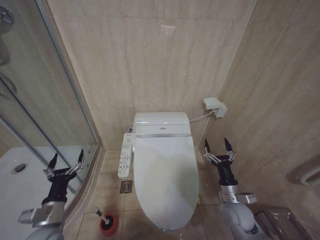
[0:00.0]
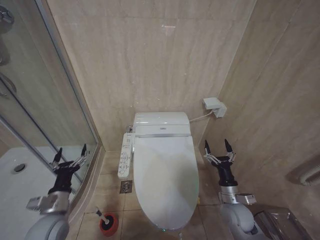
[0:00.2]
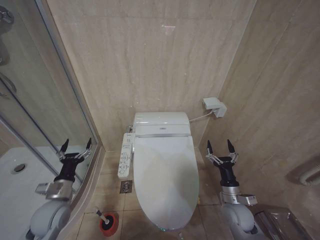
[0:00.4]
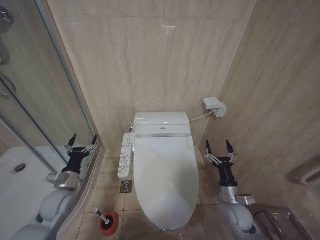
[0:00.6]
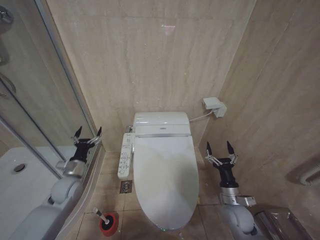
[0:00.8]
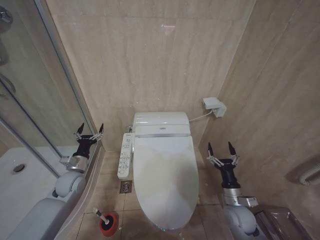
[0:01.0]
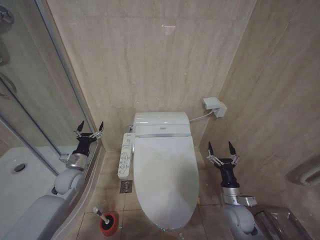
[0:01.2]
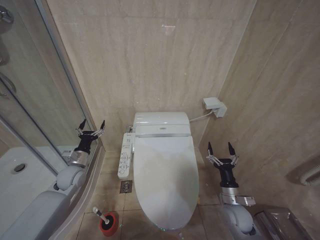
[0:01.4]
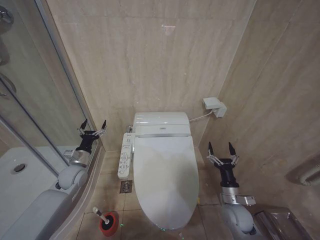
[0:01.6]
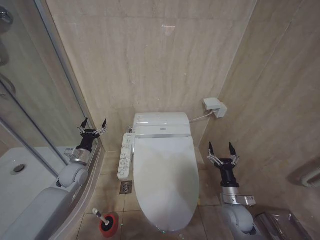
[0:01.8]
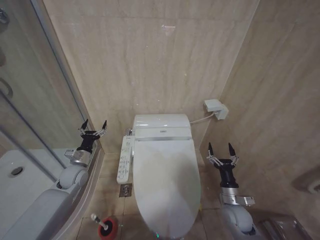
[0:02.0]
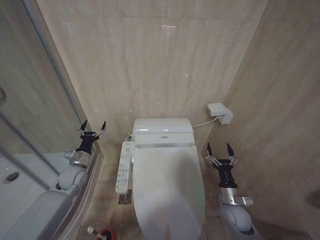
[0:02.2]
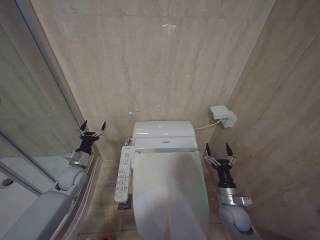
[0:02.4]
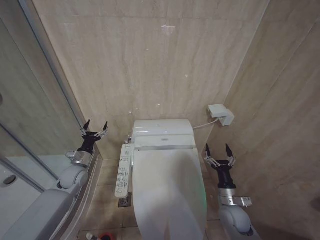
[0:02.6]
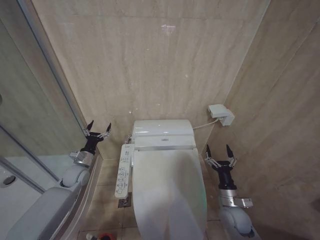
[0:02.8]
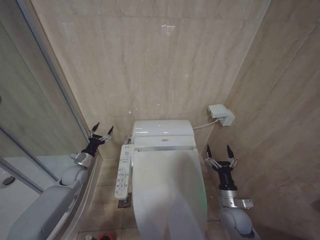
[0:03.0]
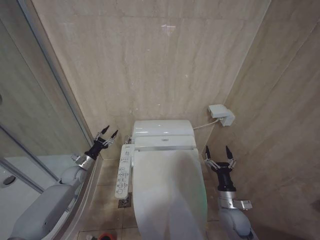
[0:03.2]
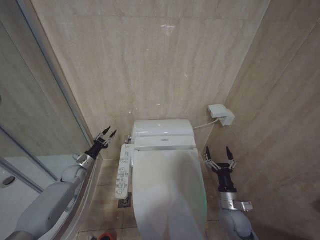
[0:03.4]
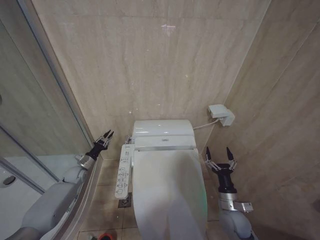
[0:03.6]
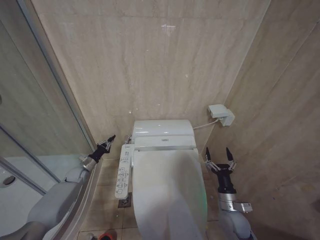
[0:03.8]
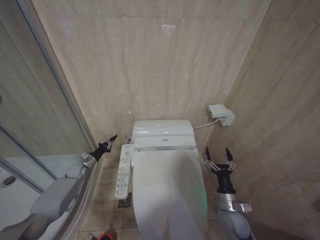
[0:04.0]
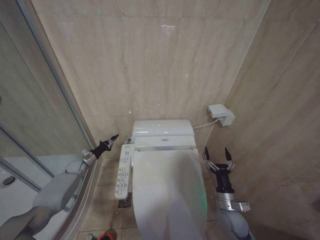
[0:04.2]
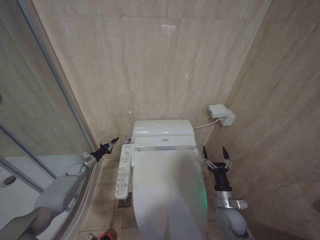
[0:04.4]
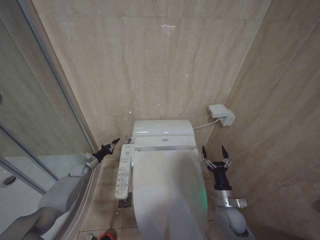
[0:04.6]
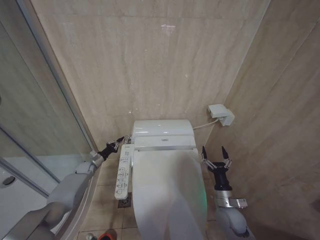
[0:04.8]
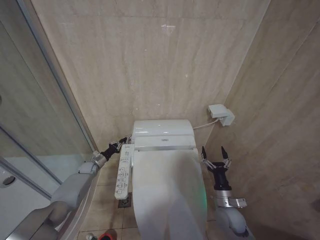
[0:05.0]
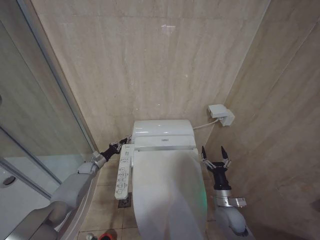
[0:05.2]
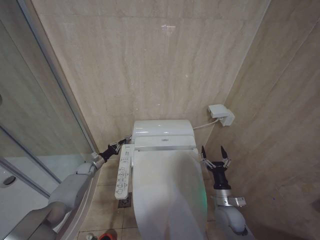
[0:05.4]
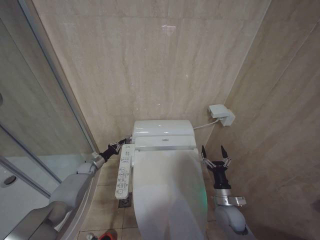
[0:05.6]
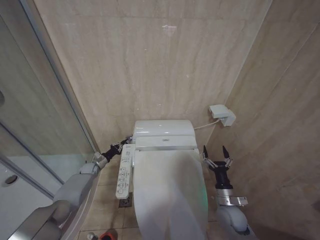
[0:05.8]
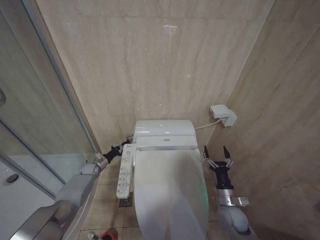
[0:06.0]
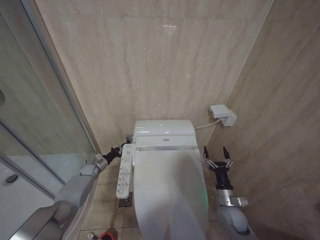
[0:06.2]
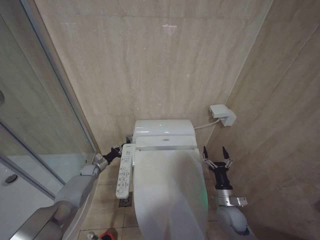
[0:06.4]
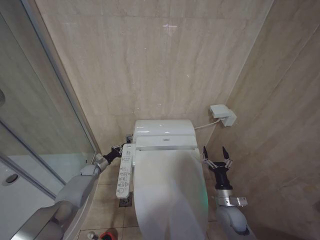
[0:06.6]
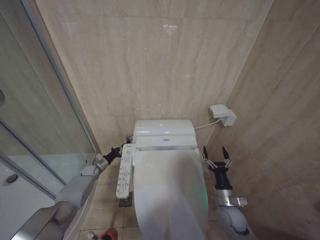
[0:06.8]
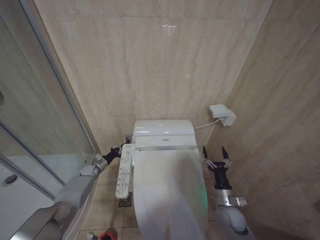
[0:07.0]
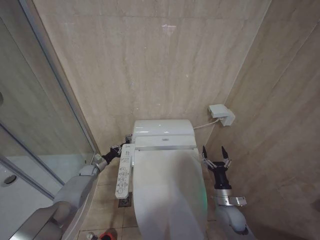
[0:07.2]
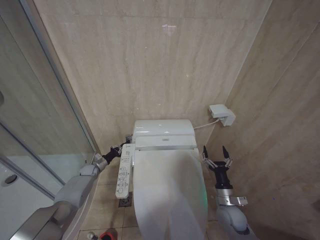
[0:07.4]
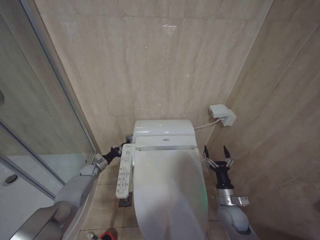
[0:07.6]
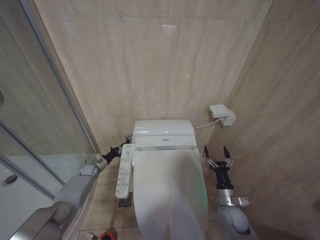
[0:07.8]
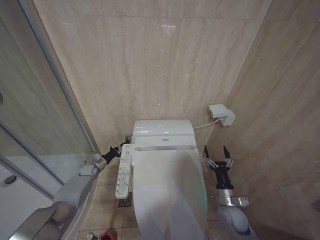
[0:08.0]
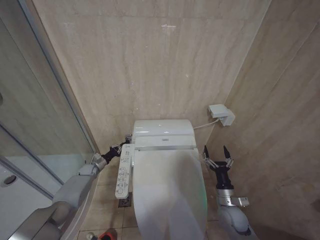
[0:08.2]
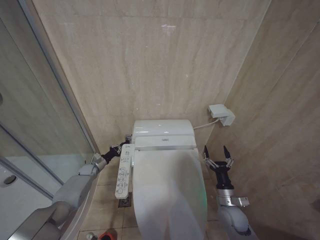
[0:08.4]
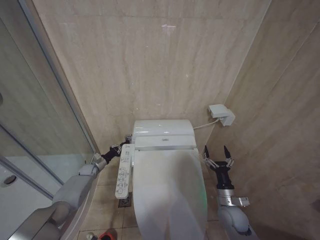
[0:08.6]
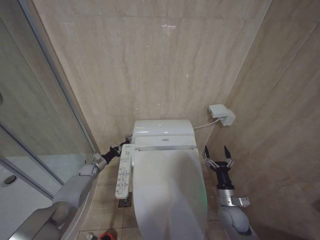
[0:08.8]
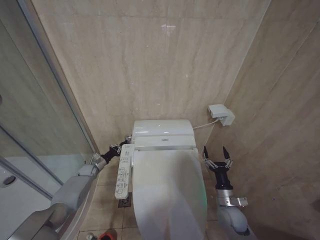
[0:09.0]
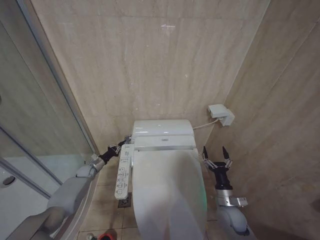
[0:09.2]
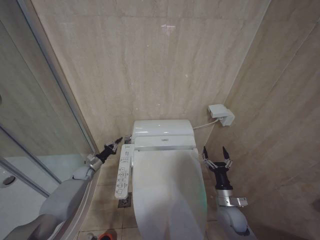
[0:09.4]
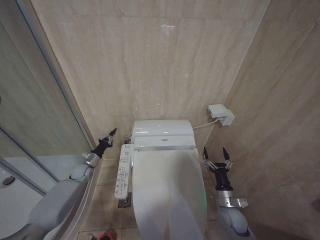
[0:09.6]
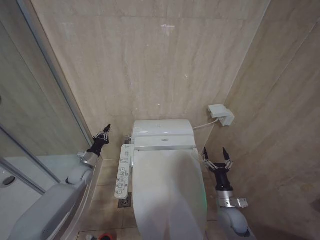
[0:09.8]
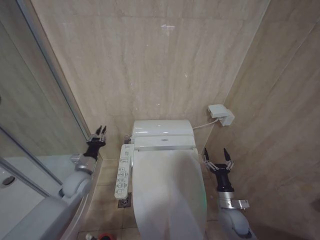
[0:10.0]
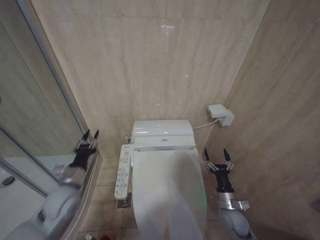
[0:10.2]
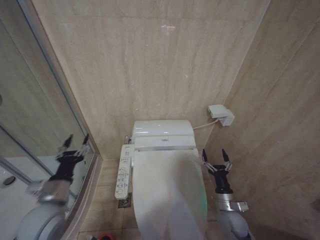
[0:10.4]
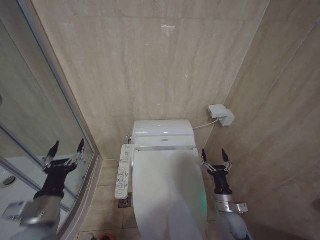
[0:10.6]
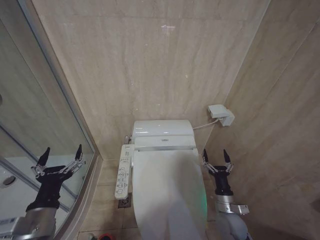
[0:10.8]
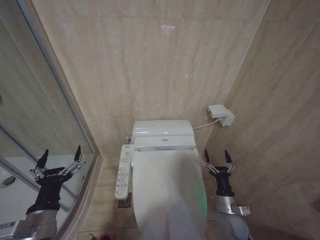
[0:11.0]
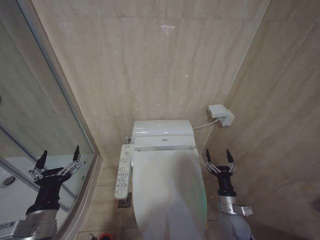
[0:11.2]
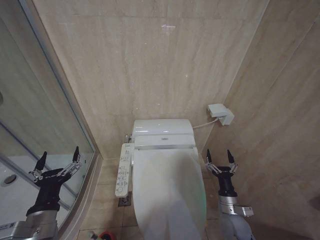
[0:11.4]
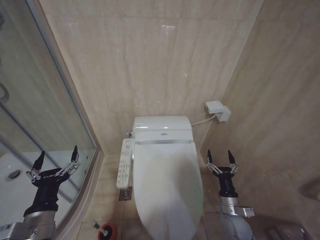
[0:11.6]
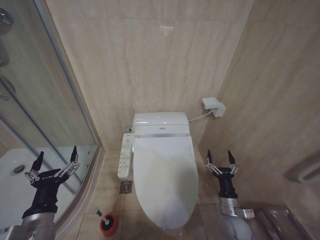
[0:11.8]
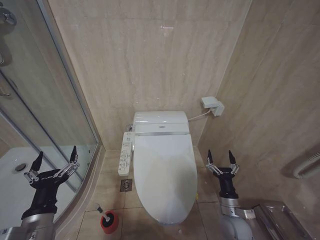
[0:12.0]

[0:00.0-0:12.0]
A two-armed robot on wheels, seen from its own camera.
Task of the whole recording: Open the toilet lid, clean the toilet bowl with a toilet brush, close the toilet lid, and flush.
0:00.0 to 0:01.6: The left gripper moves forward, about 20 cm.
0:01.6 to 0:03.0: The left gripper moves roughly 5 cm.
0:03.0 to 0:04.4: The left gripper moves forward, downward and to the left, some 10 cm, and closes.
0:04.4 to 0:06.0: The left gripper shifts about 5 cm to the right.
0:06.0 to 0:09.0: Both grippers stay put.
0:09.0 to 0:10.4: The left gripper heads backward and upward, covering approximately 35 cm, and opens up.
0:10.4 to 0:12.0: The left gripper heads backward, covering some 10 cm, and opens up.

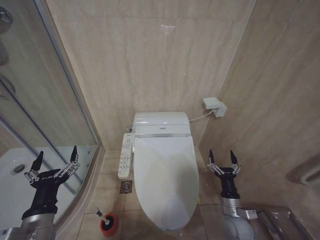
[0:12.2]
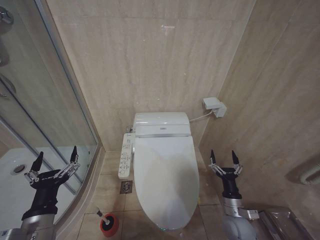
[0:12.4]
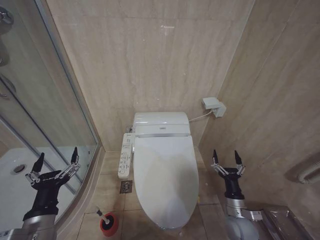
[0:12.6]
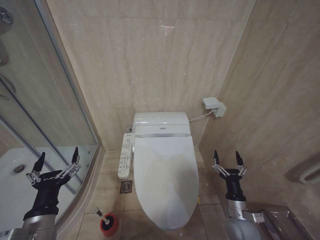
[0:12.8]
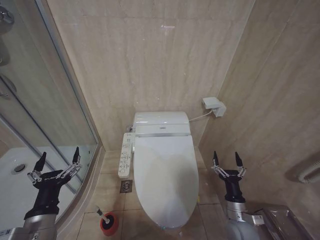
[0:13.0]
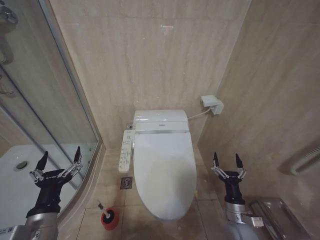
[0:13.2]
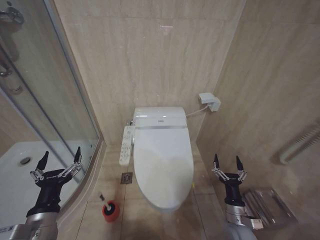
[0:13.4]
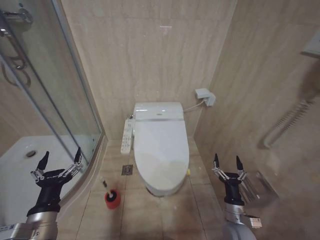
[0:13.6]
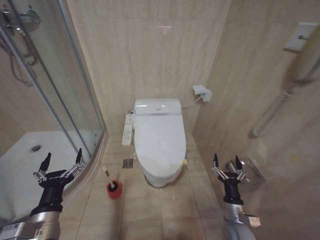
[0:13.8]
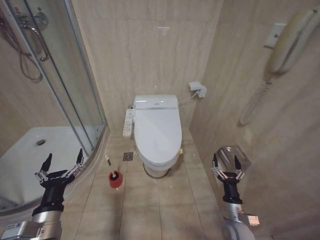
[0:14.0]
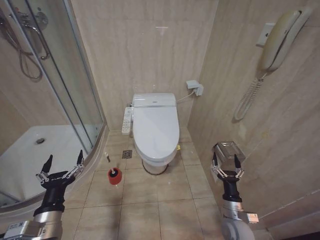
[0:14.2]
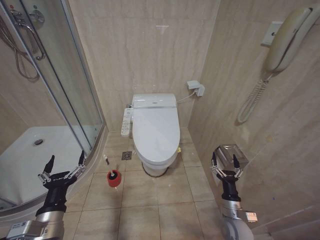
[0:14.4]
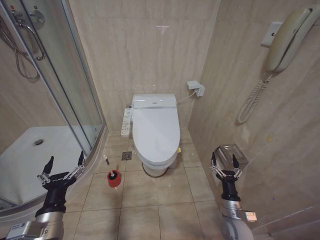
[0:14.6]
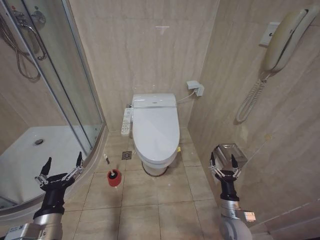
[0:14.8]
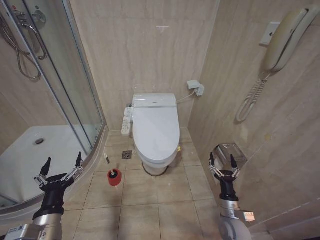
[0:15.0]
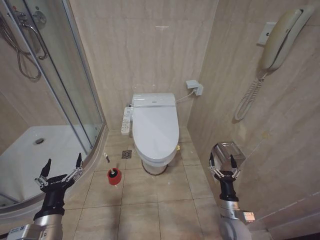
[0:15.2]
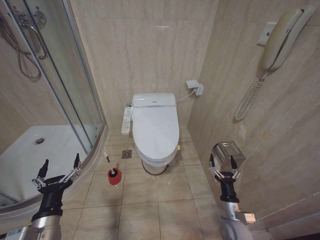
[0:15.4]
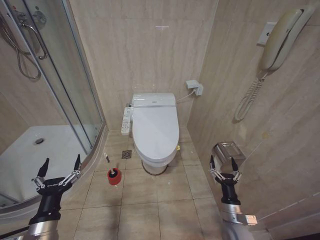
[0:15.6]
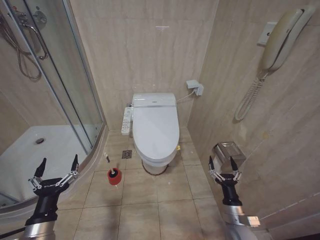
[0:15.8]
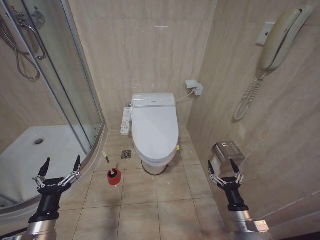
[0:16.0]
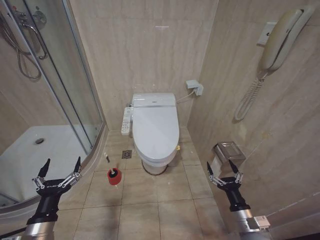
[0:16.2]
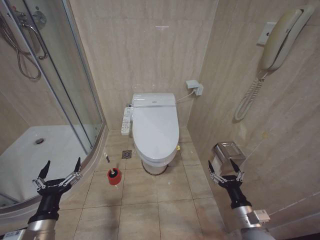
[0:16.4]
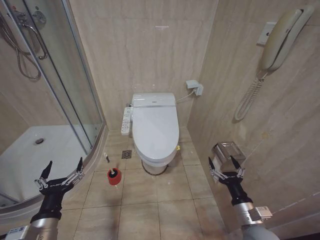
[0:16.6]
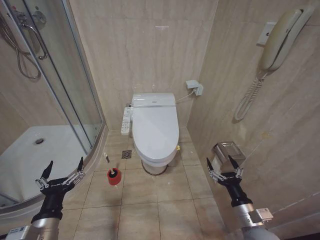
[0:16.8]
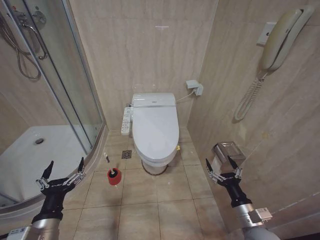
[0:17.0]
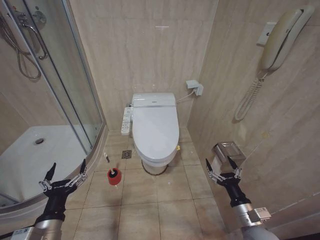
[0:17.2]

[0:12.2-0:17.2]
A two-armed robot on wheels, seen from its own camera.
Task of the whole recording: Open the toilet lid, clean the toilet bowl with a toilet brush, close the toilet lid, and flush.
0:13.8 to 0:15.6: The grippers move only a little.
0:15.6 to 0:17.2: The right gripper shifts about 10 cm upward.
